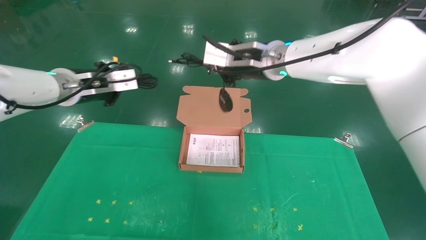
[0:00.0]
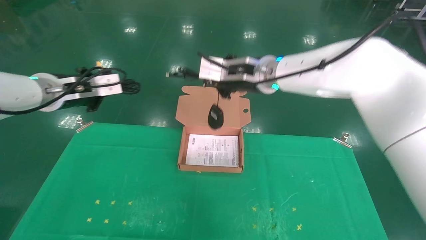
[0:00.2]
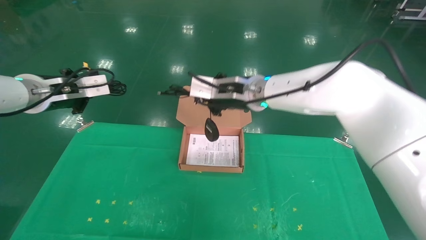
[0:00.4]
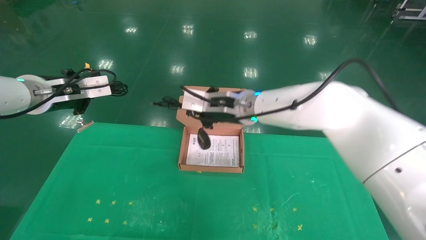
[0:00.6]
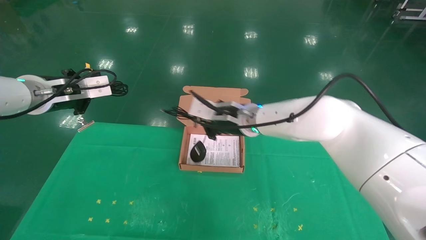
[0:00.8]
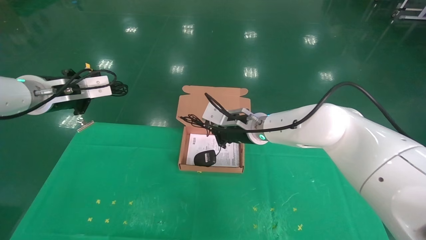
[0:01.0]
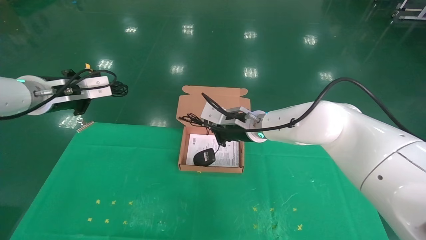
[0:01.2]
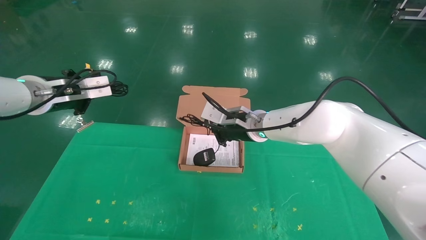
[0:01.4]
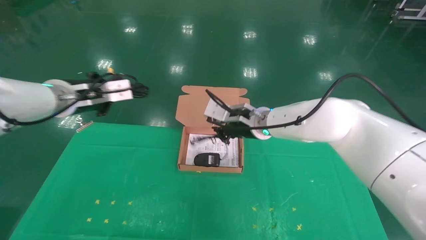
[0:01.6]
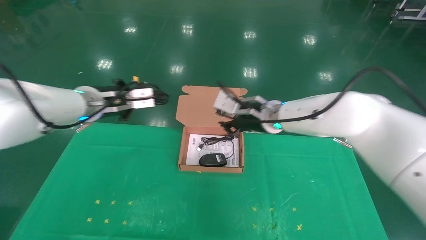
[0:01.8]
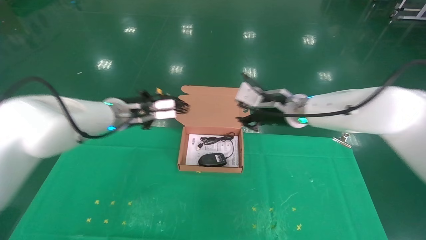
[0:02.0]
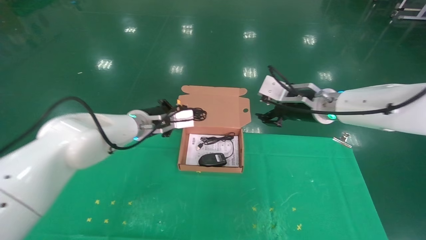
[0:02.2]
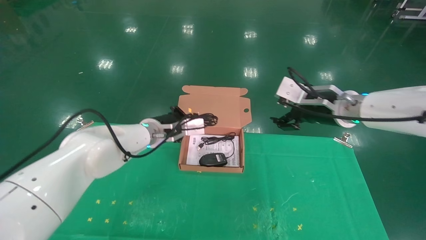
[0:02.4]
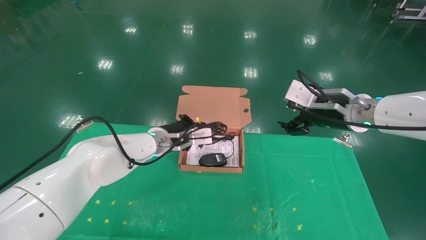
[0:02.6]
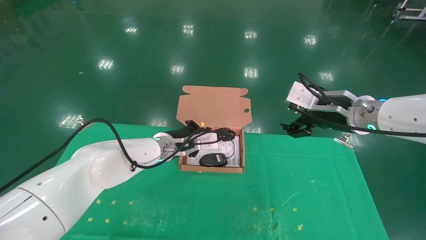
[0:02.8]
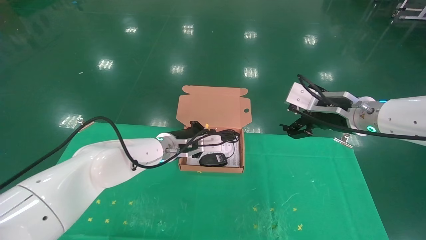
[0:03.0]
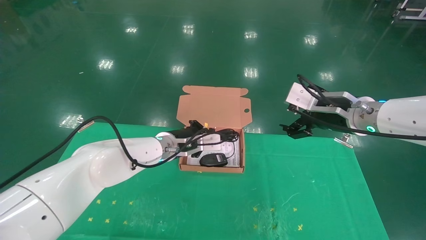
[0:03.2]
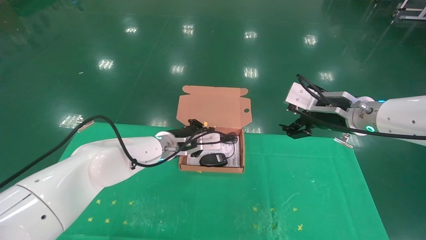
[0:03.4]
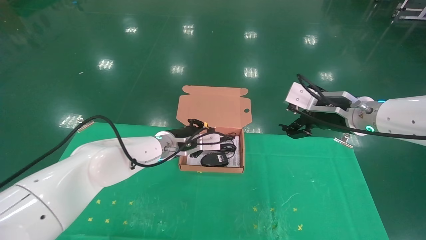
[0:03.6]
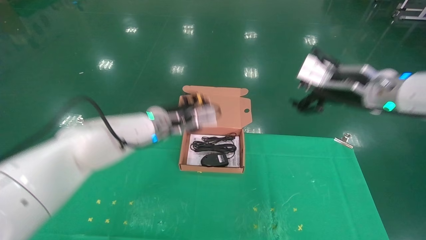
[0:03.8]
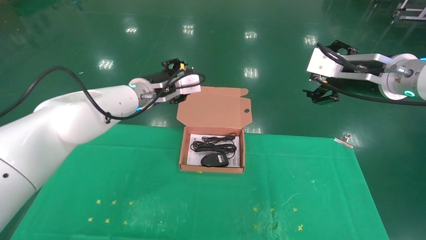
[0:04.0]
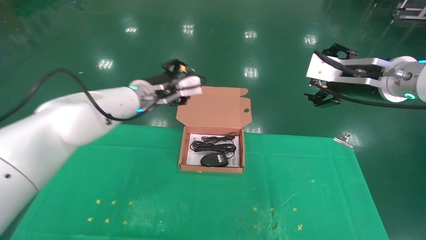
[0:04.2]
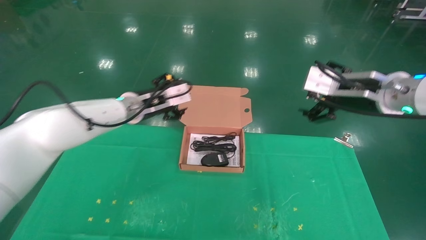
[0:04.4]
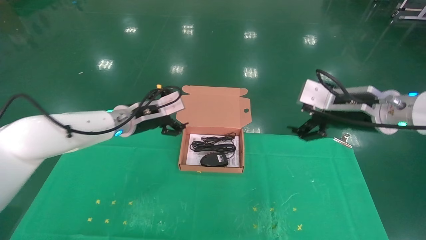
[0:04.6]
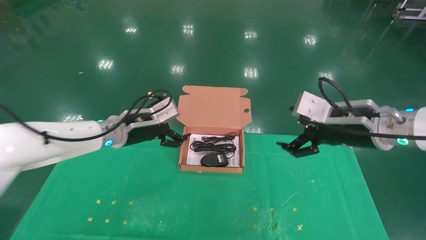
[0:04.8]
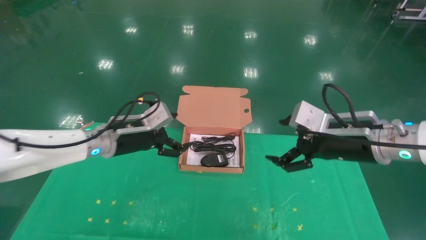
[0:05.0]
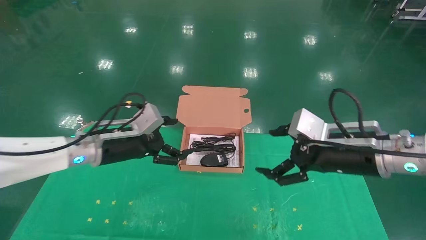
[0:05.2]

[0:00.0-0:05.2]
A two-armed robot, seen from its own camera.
Task of the whole recording: grasp data cable left put into box grasp mouse right put into box.
Step, 0:00.0 to 0:04.0: Place the mouse and power cord into the box.
0:00.0 to 0:01.8: The right gripper is displaced downward by some 10 cm, while the left gripper shifts roughly 5 cm to the right.
0:01.8 to 0:03.4: The left gripper shifts roughly 15 cm to the right and downward. Meanwhile the right gripper shifts roughly 15 cm to the right and backward, and opens.
0:03.4 to 0:05.2: The right gripper moves backward, about 5 cm; the left gripper is displaced to the left and backward by about 15 cm, and opens up.

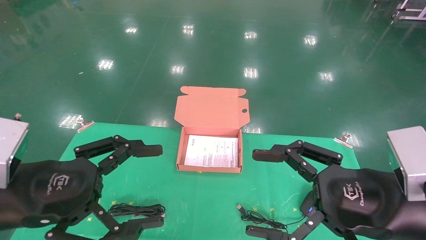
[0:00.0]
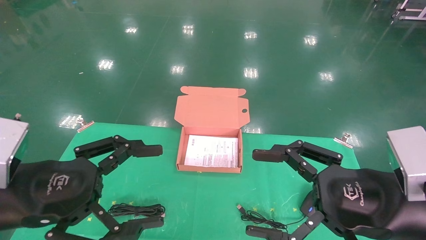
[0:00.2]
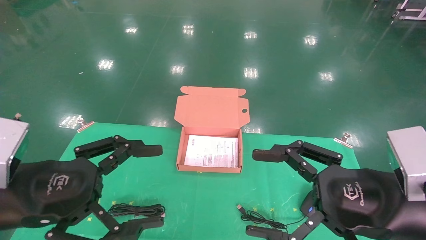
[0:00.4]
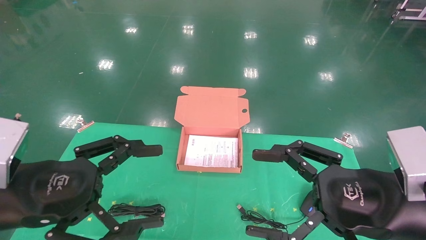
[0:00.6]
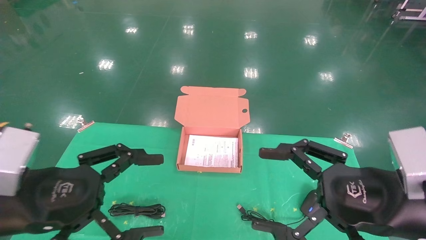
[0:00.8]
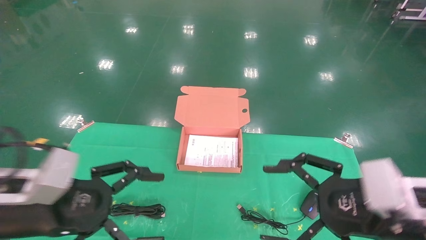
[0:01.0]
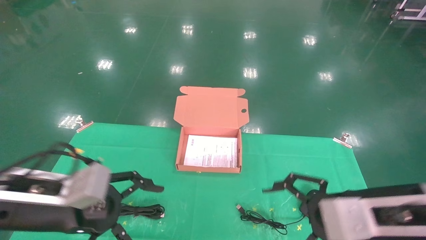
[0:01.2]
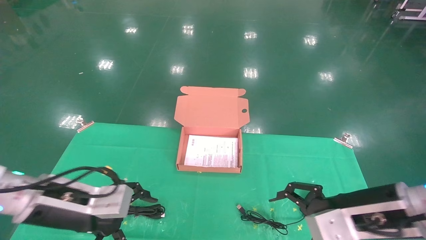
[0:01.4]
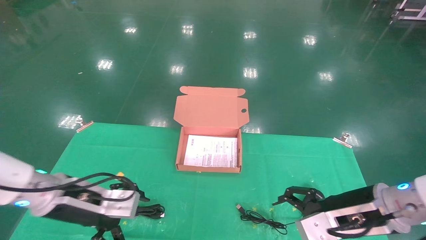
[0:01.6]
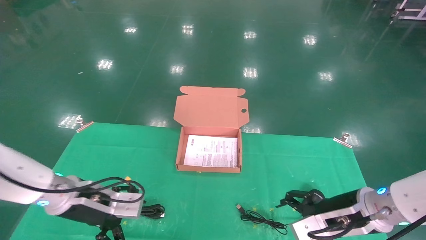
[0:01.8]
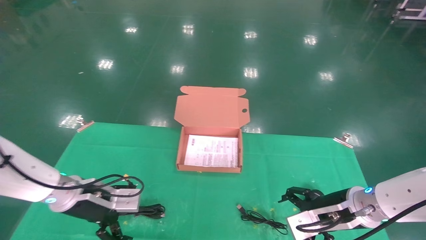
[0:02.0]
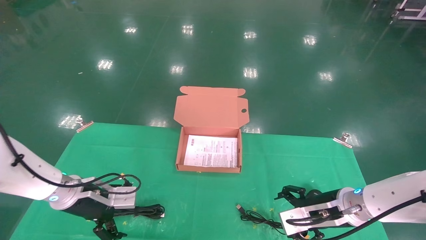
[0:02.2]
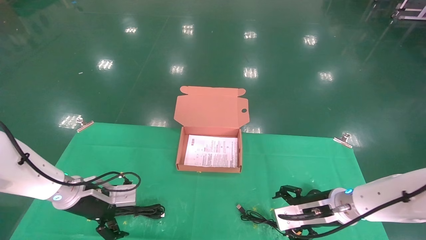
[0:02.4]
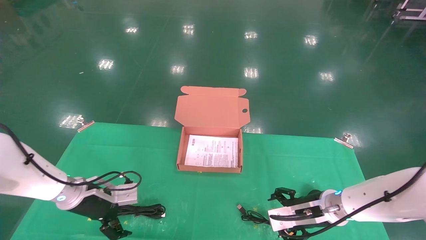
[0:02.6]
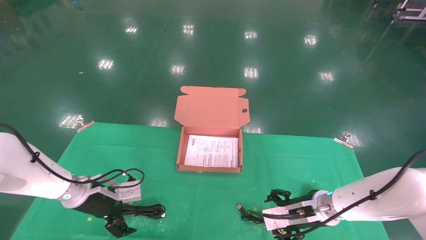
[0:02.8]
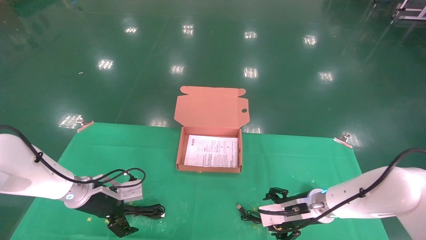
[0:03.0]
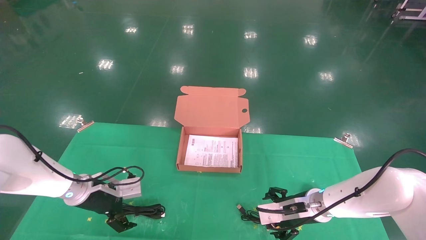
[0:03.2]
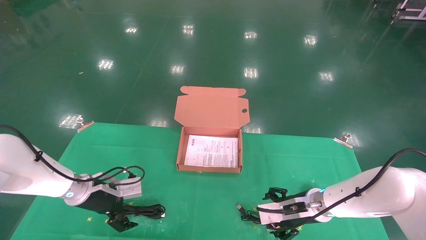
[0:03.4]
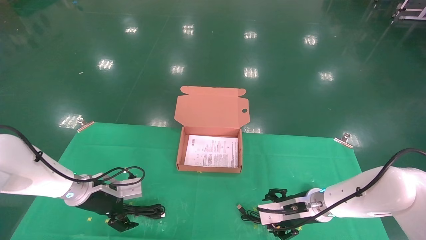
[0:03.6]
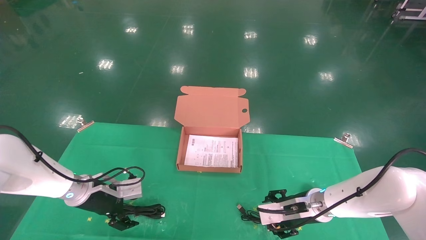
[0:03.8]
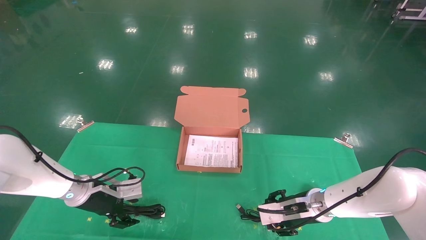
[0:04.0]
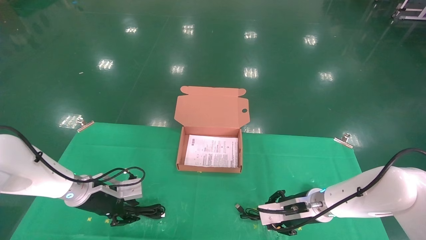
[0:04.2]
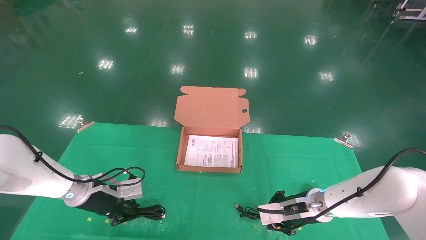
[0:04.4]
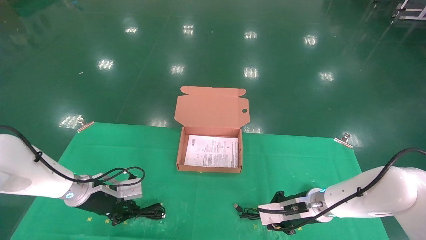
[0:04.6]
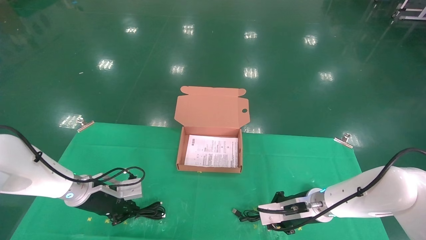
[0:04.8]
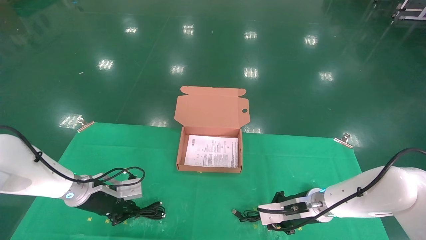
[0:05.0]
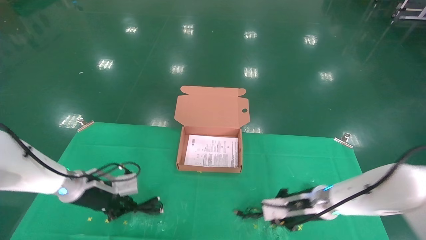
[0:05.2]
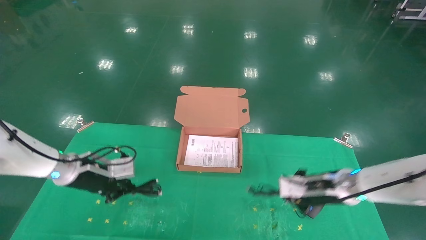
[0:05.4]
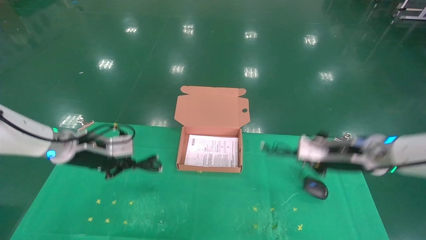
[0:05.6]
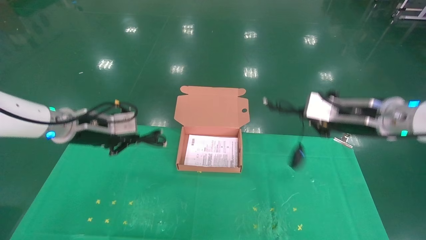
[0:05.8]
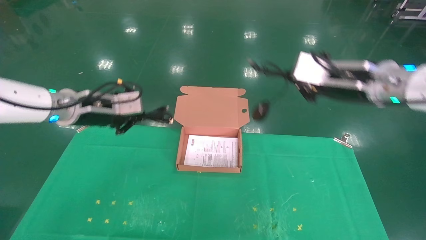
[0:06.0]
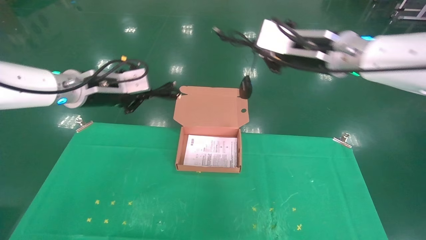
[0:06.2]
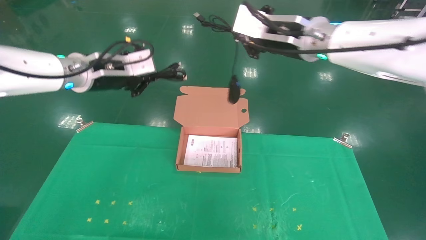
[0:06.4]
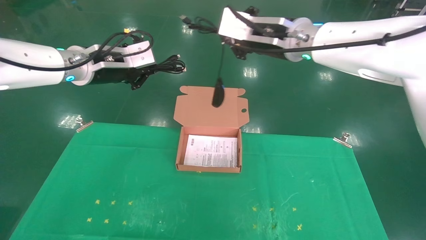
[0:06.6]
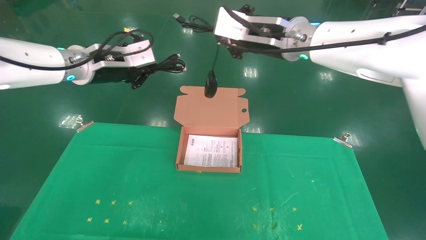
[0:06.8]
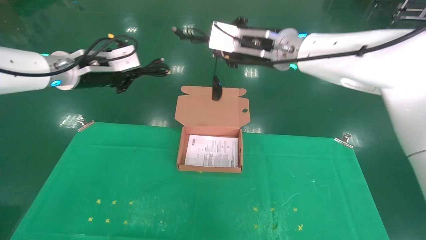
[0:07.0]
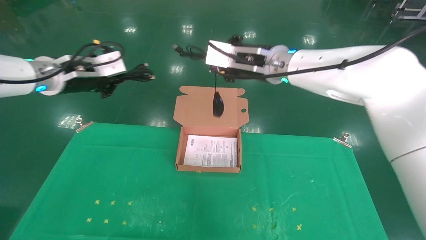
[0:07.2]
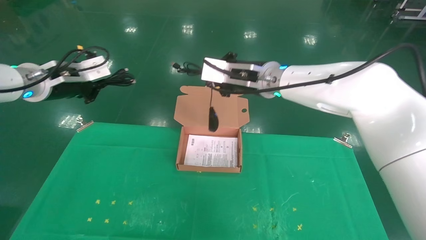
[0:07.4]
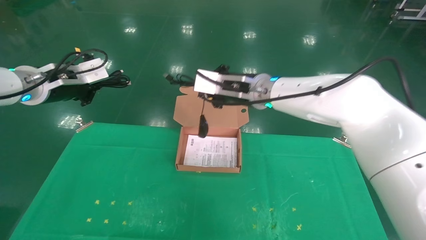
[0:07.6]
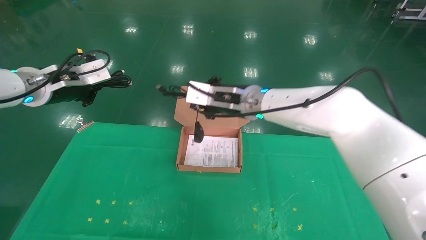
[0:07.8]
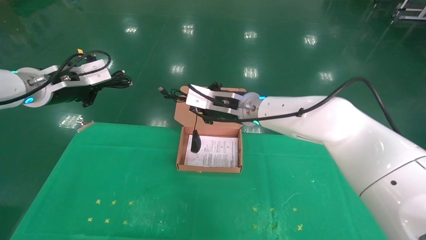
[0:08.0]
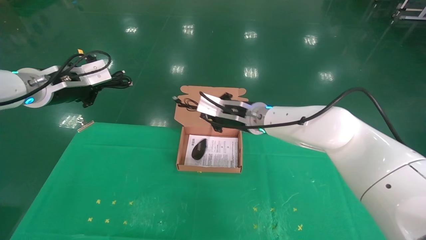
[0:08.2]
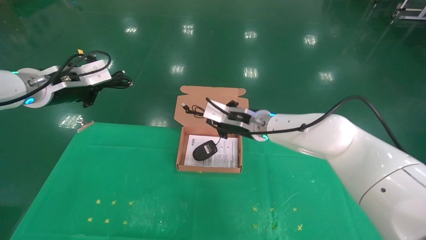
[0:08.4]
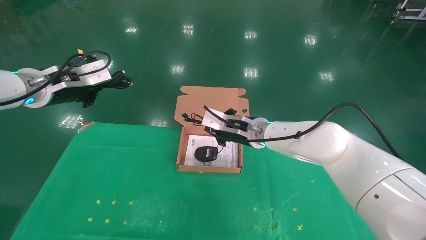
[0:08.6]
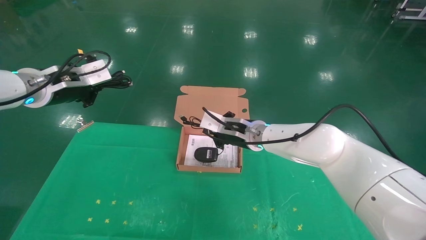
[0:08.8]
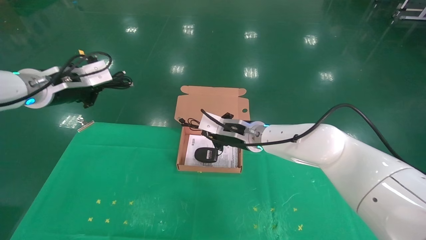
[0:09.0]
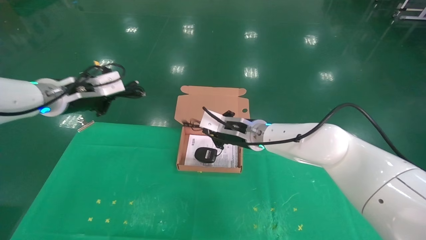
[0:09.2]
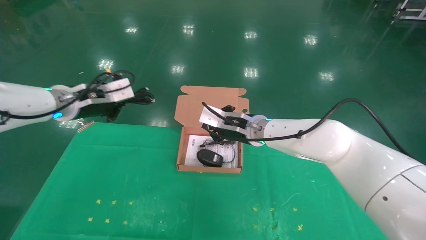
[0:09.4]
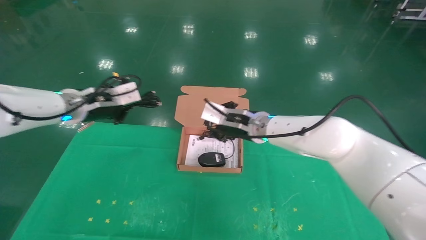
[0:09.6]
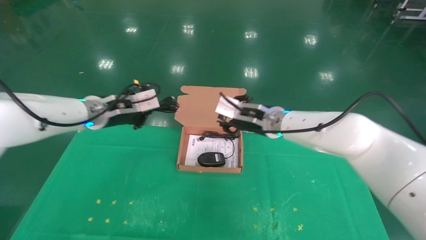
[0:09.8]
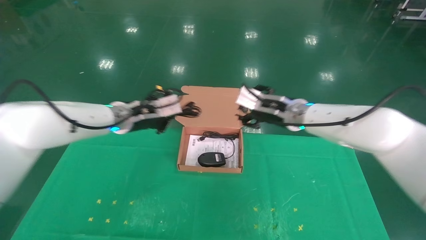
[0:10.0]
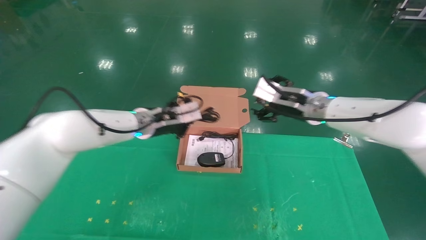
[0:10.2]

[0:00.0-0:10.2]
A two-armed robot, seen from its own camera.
Task of the whole recording: grasp data cable left put into box grasp mouse right put into box.
Step, 0:01.0 to 0:05.6: Grab and pick up both the mouse and power cord from the accessory packaging area at the same time.
0:00.0 to 0:01.4: The grippers both shift forward and downward by approximately 10 cm.
0:01.4 to 0:03.0: The grippers both shift forward and downward by about 15 cm.
0:03.0 to 0:04.4: The right gripper closes its fingers. The left gripper closes up.
0:04.4 to 0:05.8: The two grippers go approximately 20 cm upward.
0:05.8 to 0:07.2: The right gripper travels to the left and upward by some 20 cm. The left gripper moves upward, some 10 cm.
0:07.2 to 0:08.8: The right gripper is displaced downward by approximately 15 cm.
0:08.8 to 0:10.2: The left gripper moves to the right, downward and forward, roughly 20 cm, while the right gripper is displaced to the right and upward by roughly 15 cm, and opens up.

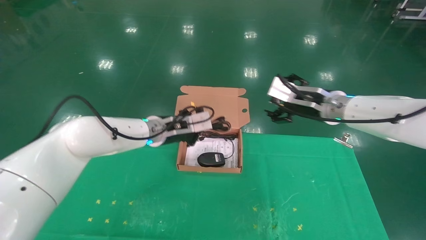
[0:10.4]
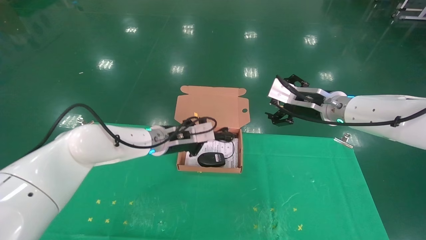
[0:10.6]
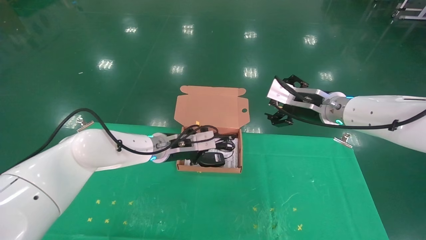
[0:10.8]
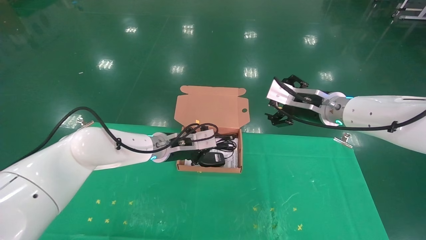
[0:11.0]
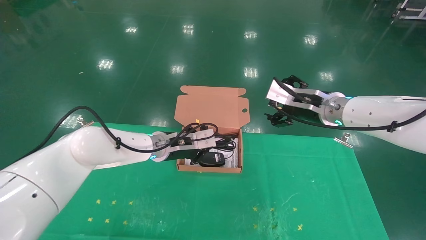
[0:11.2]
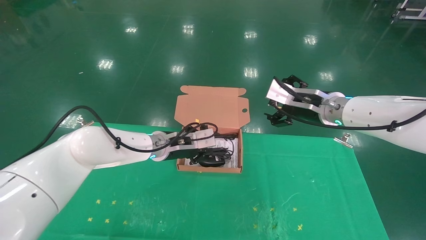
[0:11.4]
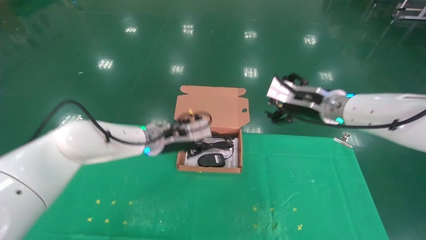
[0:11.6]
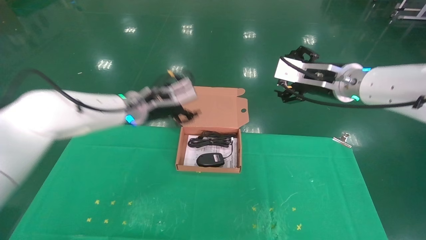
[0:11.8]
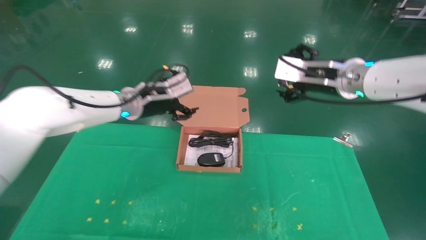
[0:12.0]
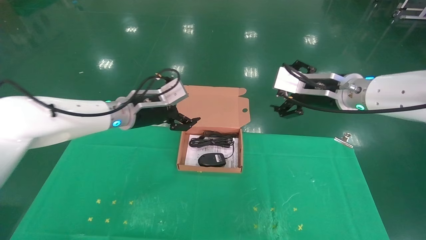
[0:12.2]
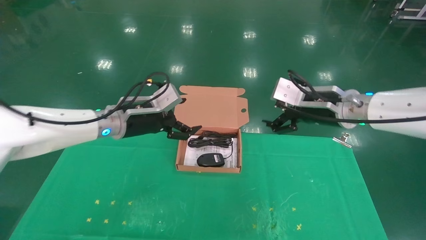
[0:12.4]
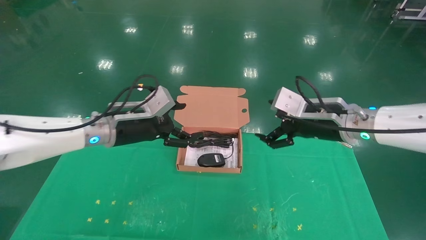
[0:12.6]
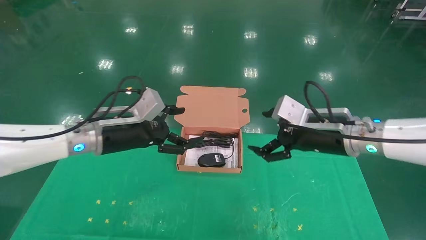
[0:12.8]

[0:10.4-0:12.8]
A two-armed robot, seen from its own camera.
Task of the whole recording: grasp data cable left put into box grasp mouse right put into box.
0:10.4 to 0:11.6: The grippers stay close to where they were, moving slightly.
0:11.6 to 0:12.8: The left gripper heads backward and to the left, covering about 10 cm, and opens up, while the right gripper travels backward by approximately 5 cm.
